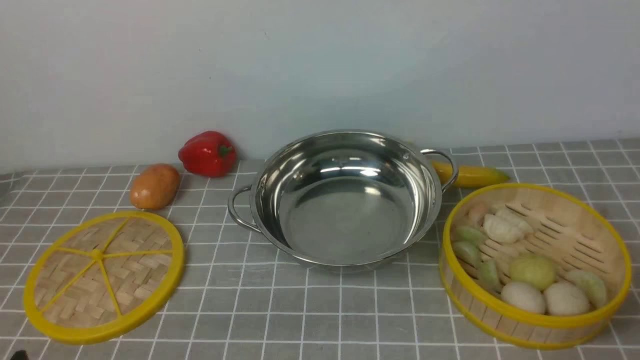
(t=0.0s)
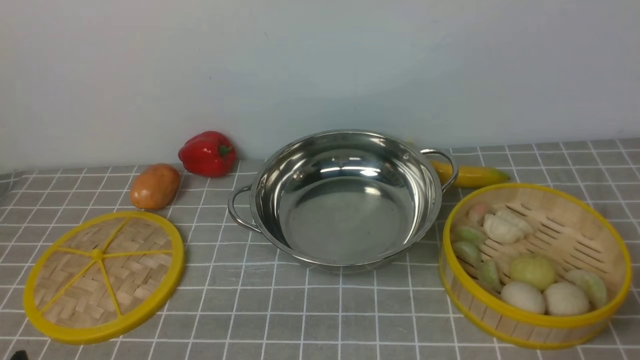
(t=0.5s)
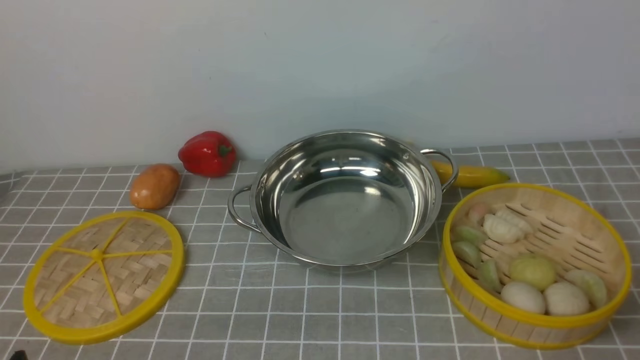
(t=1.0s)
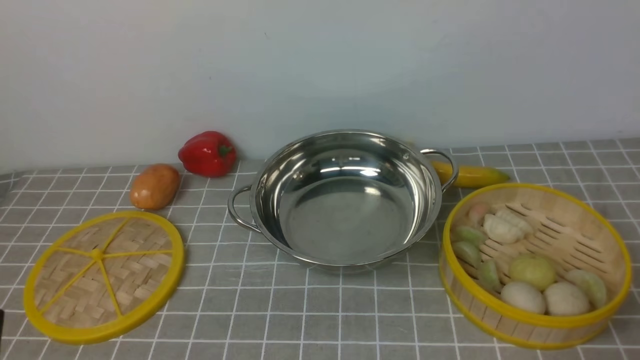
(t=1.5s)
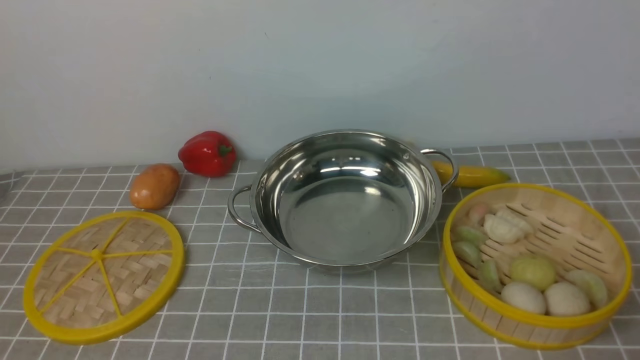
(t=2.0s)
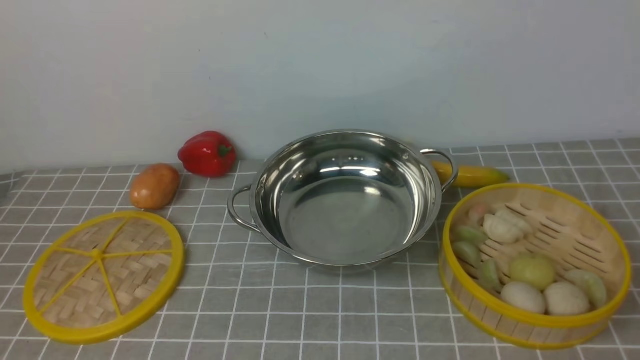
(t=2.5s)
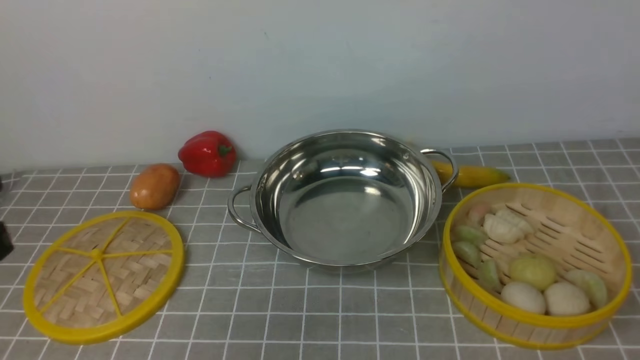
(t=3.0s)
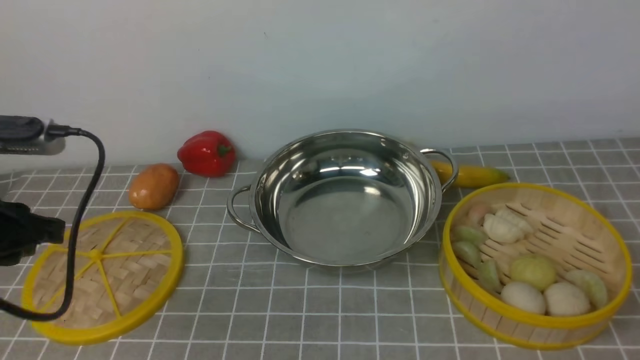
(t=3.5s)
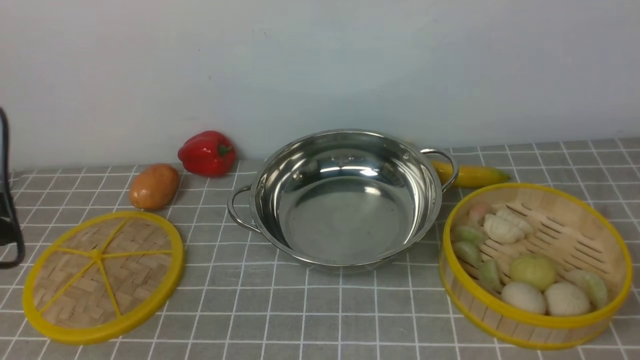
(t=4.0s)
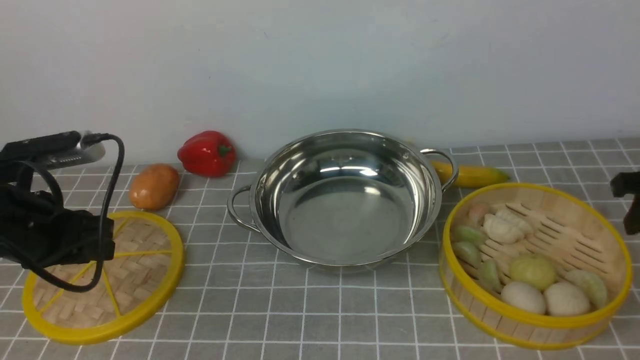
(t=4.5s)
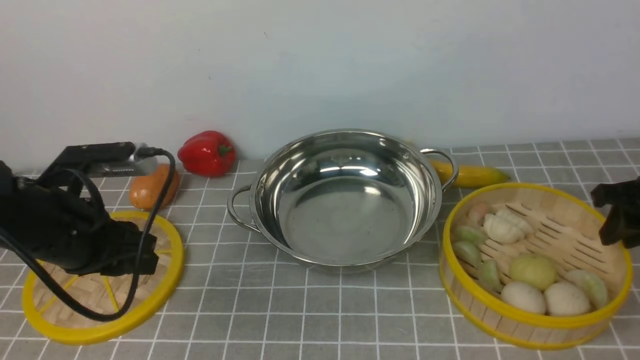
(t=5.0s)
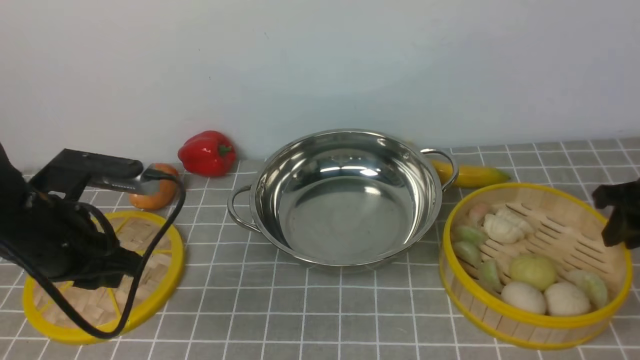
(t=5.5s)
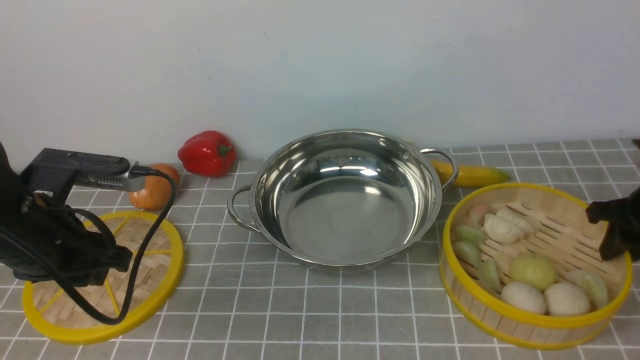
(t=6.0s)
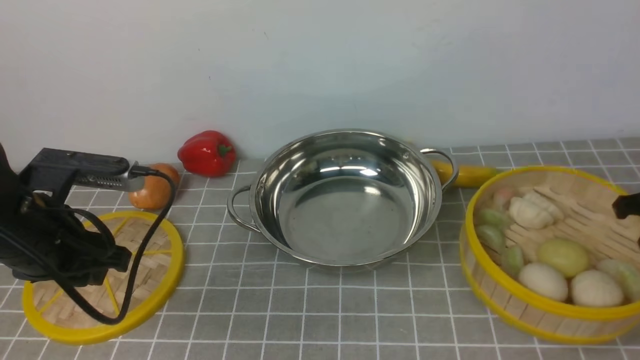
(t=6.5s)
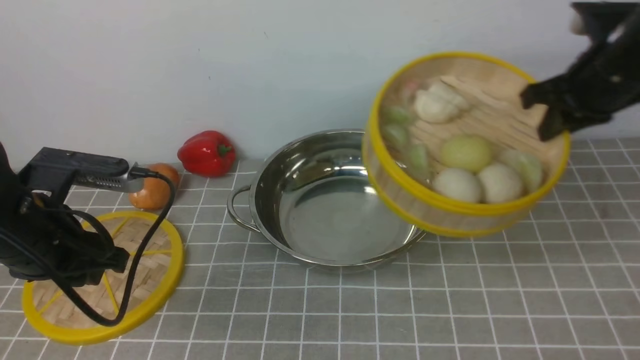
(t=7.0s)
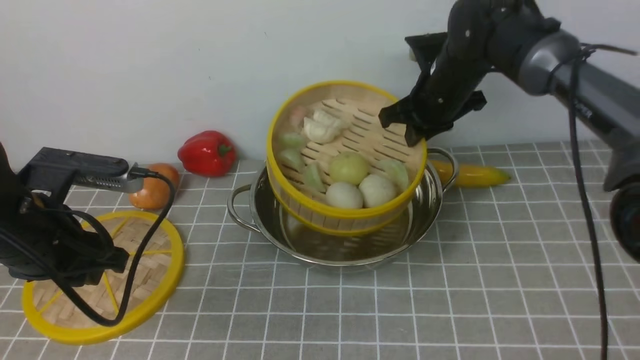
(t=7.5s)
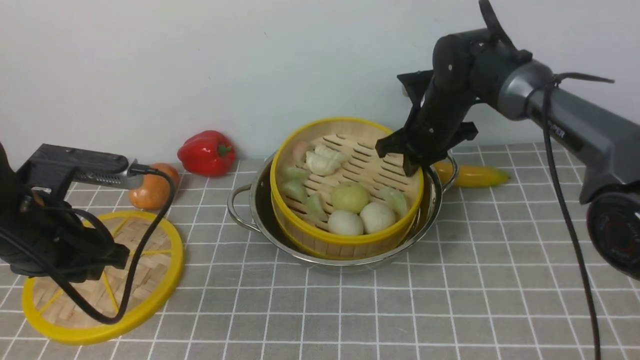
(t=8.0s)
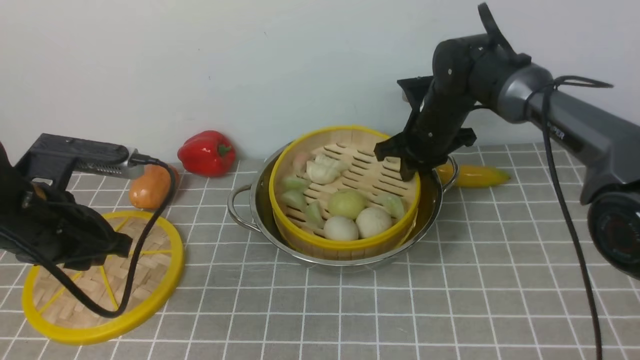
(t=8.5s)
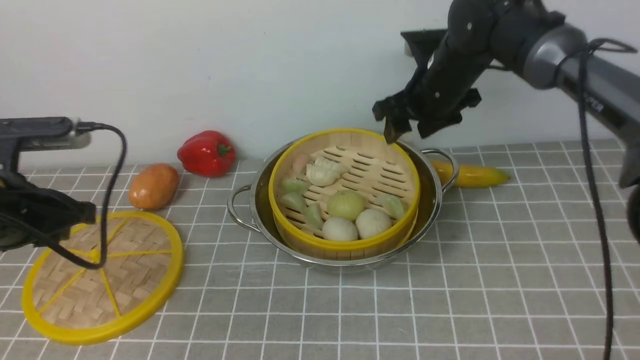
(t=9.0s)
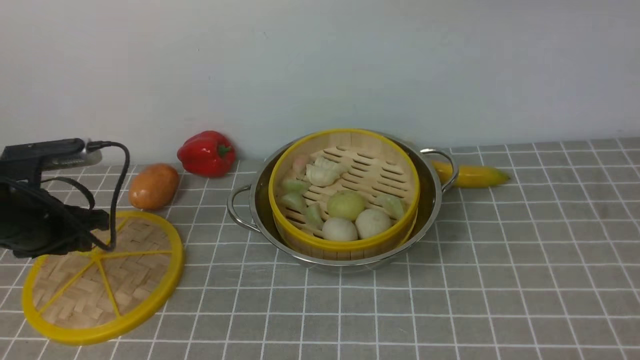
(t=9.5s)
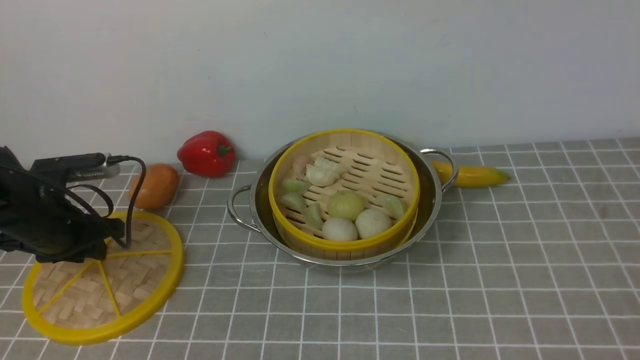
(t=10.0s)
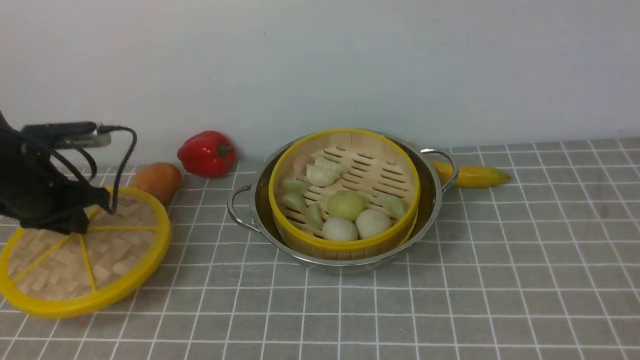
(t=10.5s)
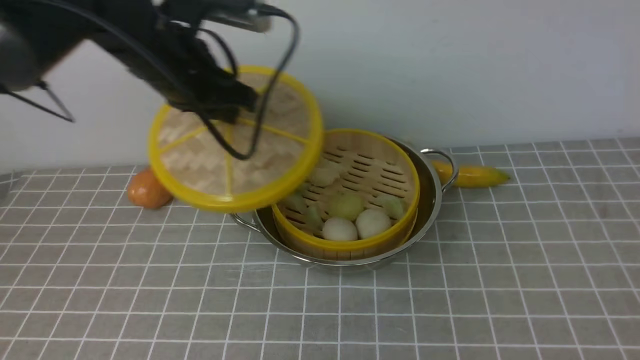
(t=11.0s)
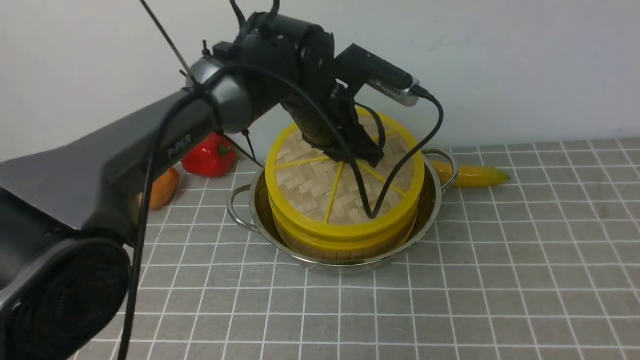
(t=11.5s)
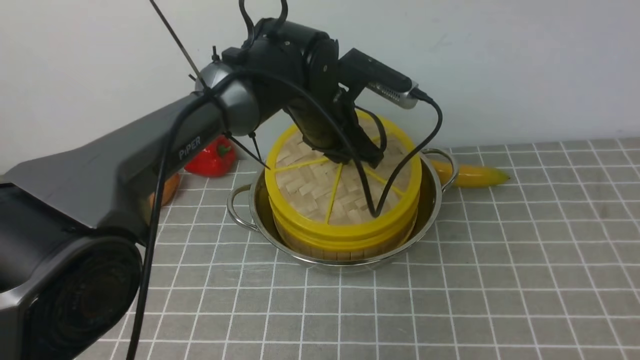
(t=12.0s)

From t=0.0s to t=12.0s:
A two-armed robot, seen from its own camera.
Task of the whole recording: place the steamer in the pot on the grey tablecloth, and put the lid on the steamer.
Step, from t=0.0s to t=6.0s: use the right arm to lift the steamer closest to it.
Step, from t=7.0s to t=8.5s: use the right arm to put the steamer into the iron steamer pot in the middle.
Step, from t=9.0s to t=10.0s: use the left arm to lift the lid of the steamer.
From t=2.0s to t=4.0s: The left gripper goes roughly 20 cm forward and to the left.
From t=4.0s to t=6.0s: The right gripper goes approximately 10 cm downward. Meanwhile the left gripper goes approximately 10 cm to the right.
From t=6.0s to t=8.0s: The right gripper shifts roughly 25 cm to the left and forward.
From t=8.0s to t=10.0s: The left gripper is displaced downward, forward and to the left by about 15 cm. The right gripper goes about 50 cm upward and backward, and opens its fingers.
From t=10.0s to t=12.0s: The left gripper goes about 30 cm to the right.

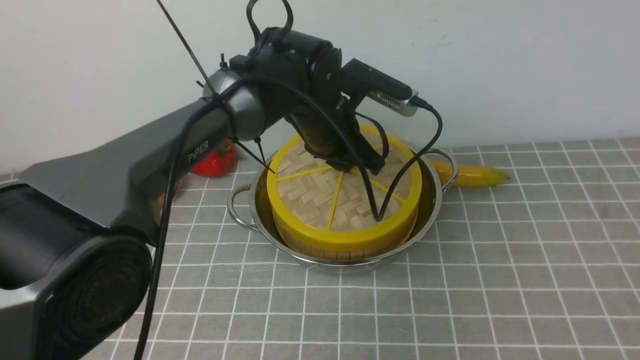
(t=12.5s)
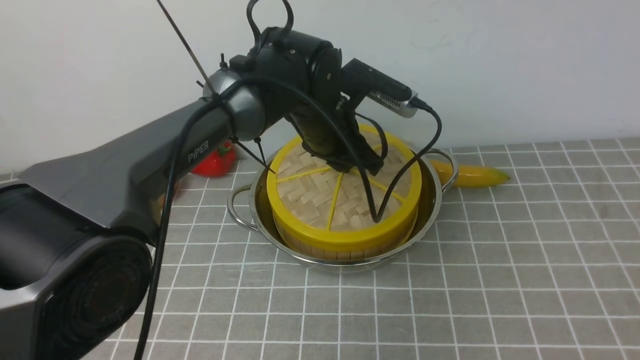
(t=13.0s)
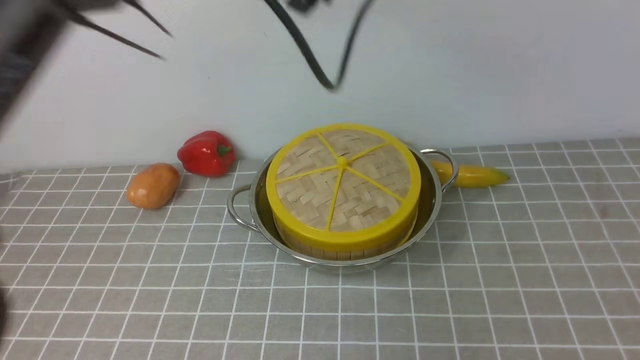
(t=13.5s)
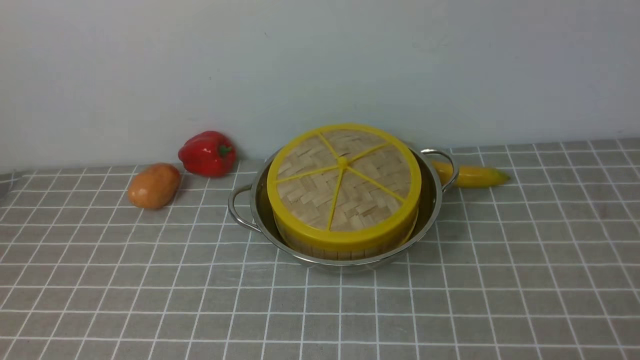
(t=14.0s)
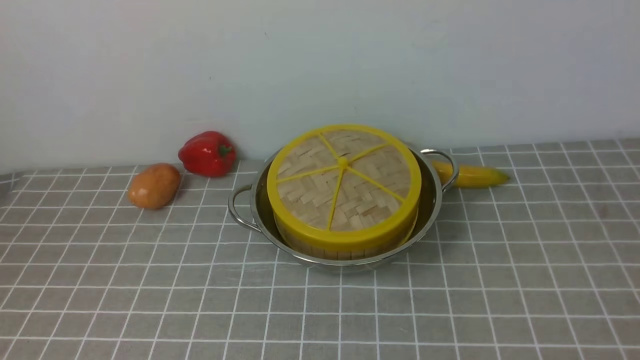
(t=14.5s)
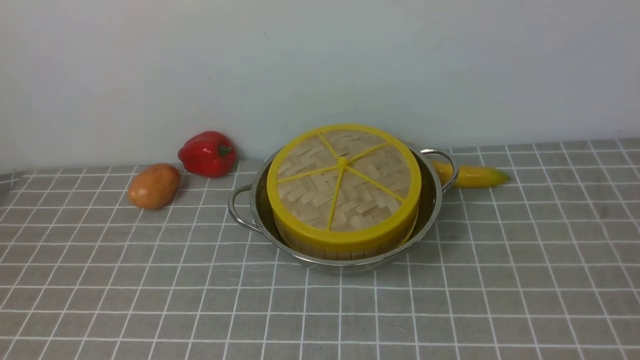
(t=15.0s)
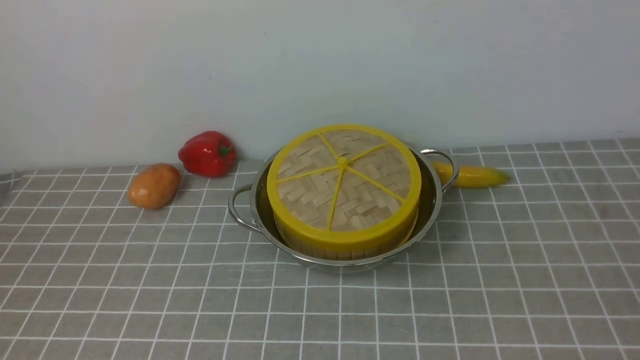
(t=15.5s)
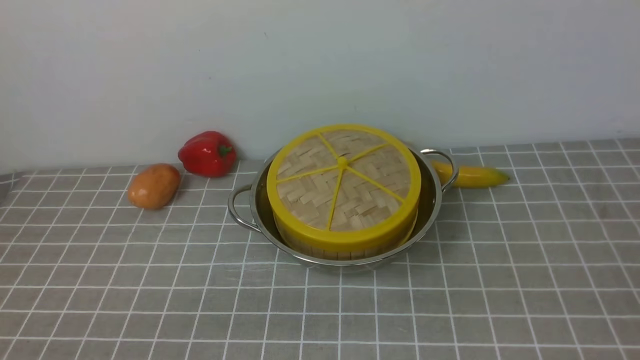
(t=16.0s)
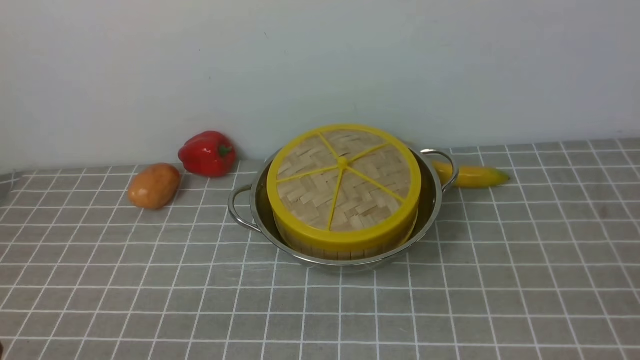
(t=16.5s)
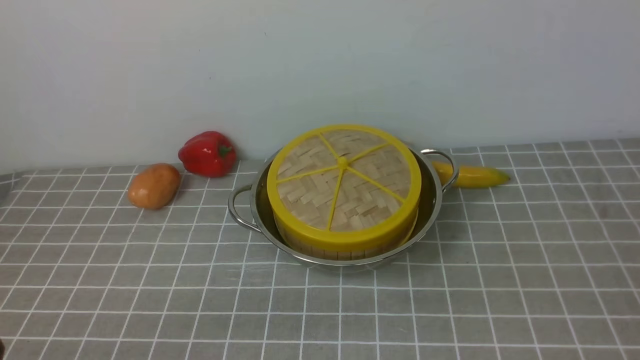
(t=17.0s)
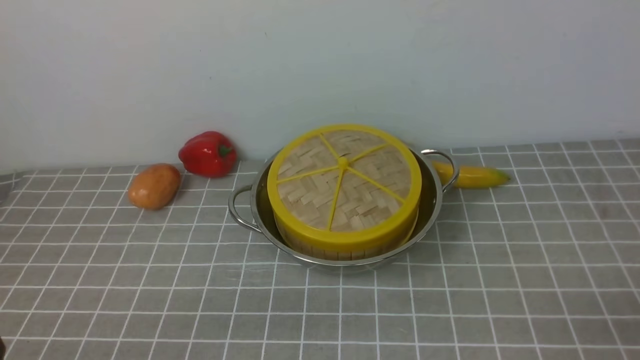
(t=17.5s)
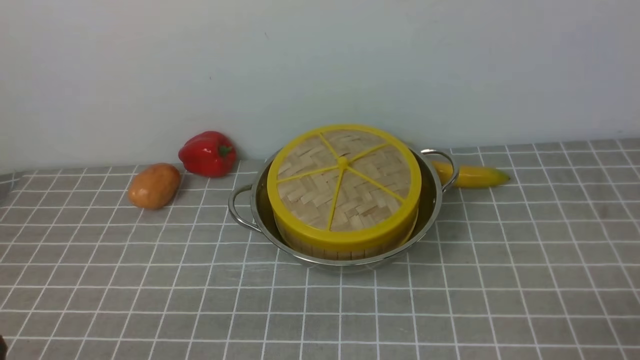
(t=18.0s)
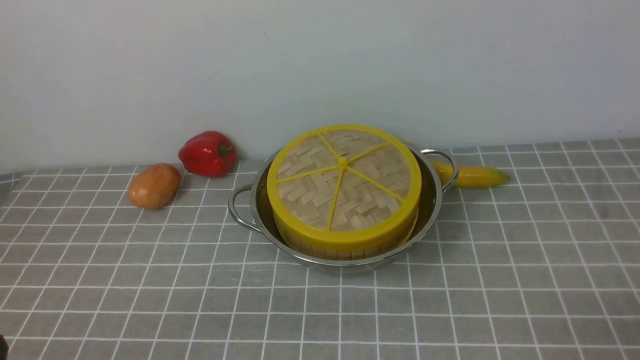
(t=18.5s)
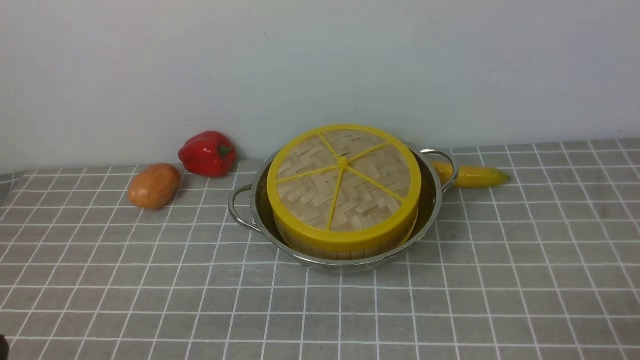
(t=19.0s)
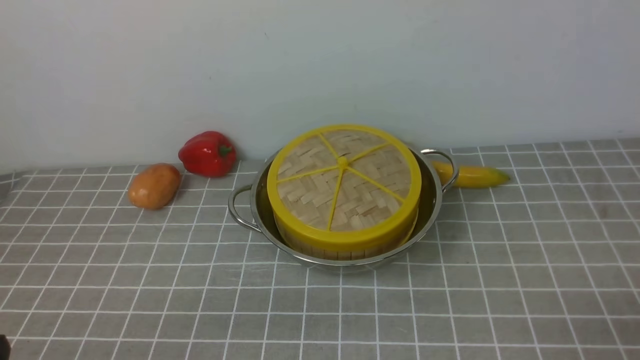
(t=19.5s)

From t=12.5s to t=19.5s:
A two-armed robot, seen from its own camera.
Task of the whole recording: place the steamer in the pot on the grey tablecloth, and put the lid on the steamer.
From t=12.5s to t=14.5s: The left gripper is displaced backward, to the left and upward by approximately 50 cm, and opens, then closes once more. Meanwhile the right gripper moves downward and backward, about 25 cm, and closes up.
